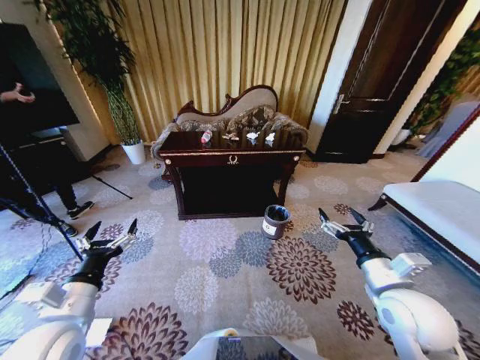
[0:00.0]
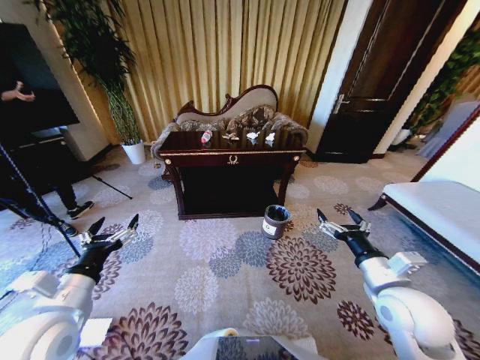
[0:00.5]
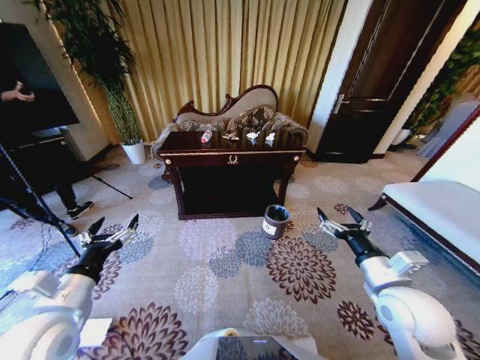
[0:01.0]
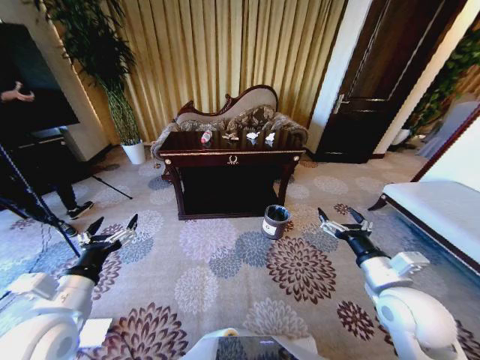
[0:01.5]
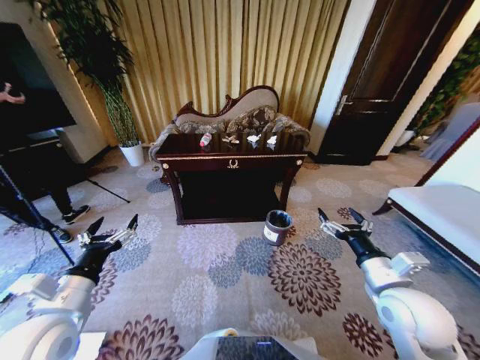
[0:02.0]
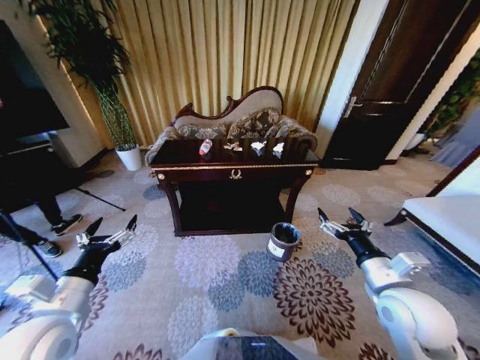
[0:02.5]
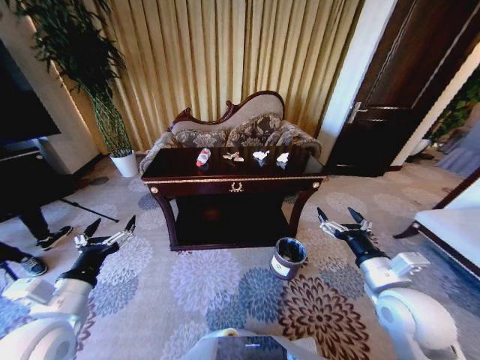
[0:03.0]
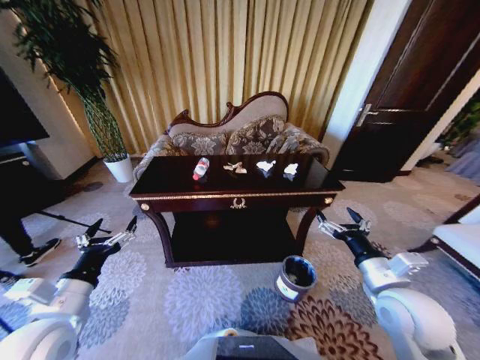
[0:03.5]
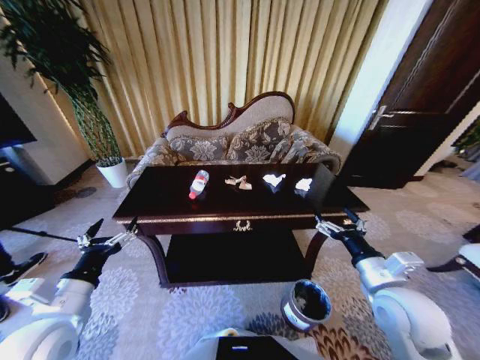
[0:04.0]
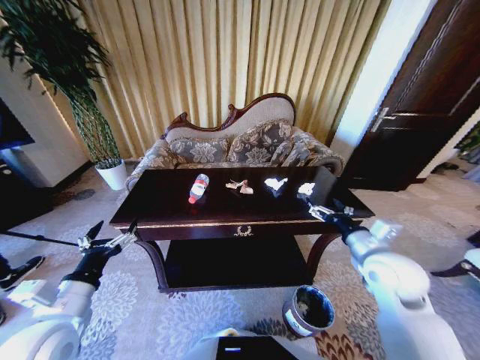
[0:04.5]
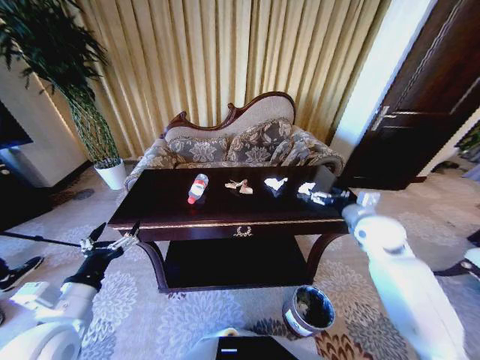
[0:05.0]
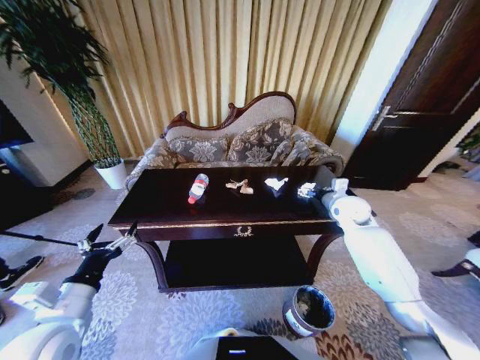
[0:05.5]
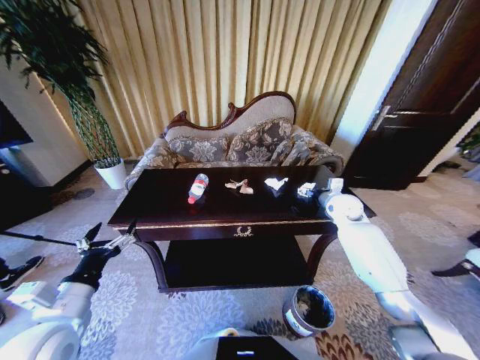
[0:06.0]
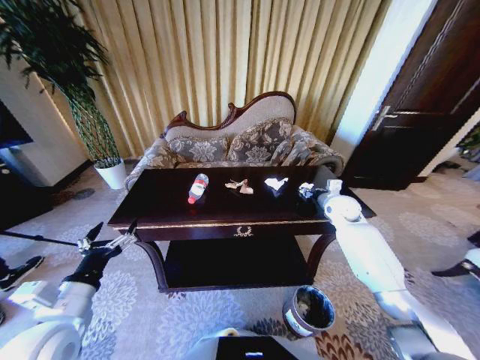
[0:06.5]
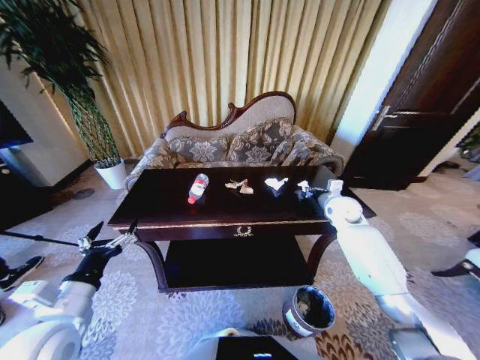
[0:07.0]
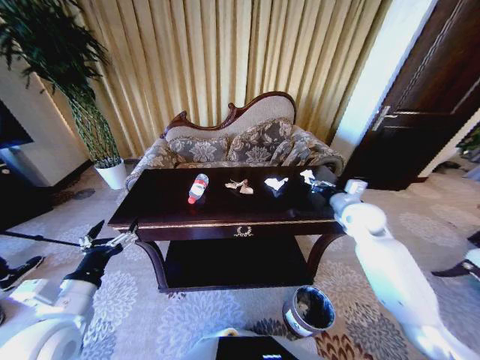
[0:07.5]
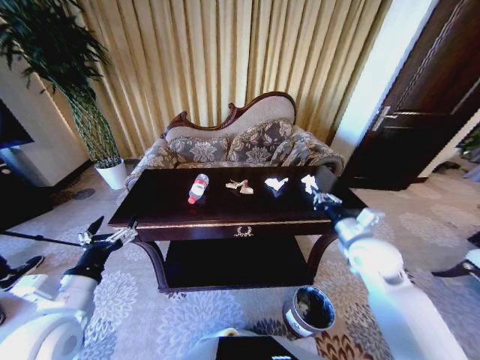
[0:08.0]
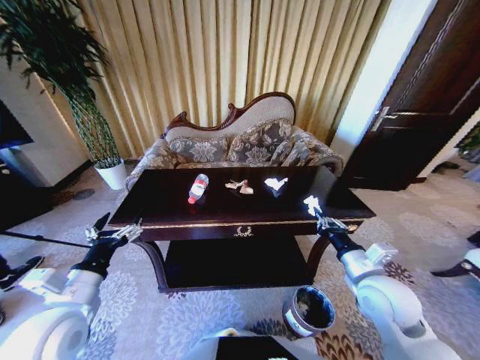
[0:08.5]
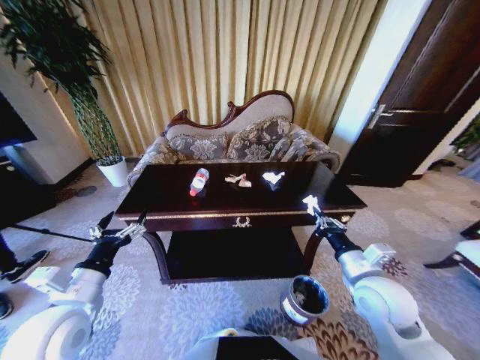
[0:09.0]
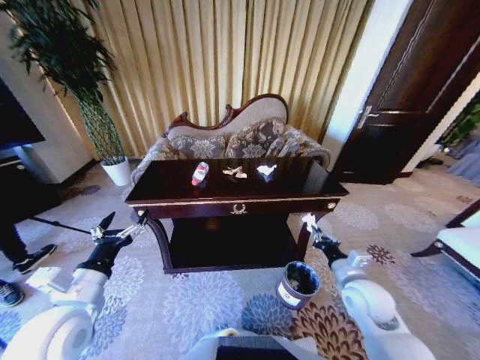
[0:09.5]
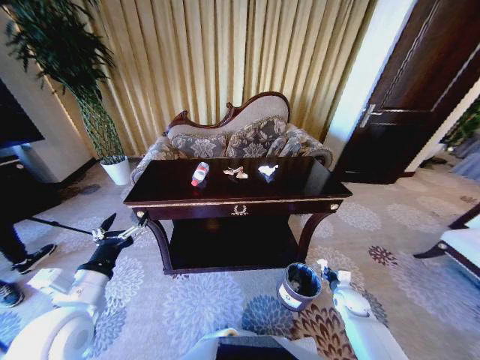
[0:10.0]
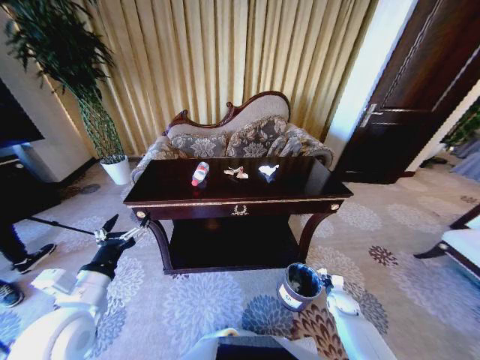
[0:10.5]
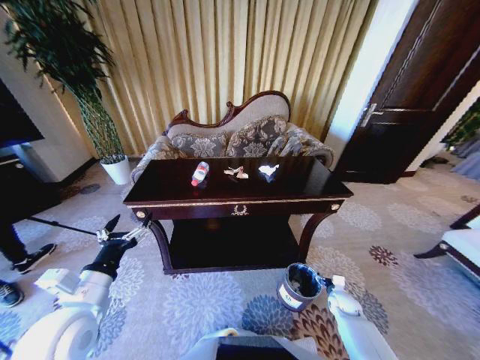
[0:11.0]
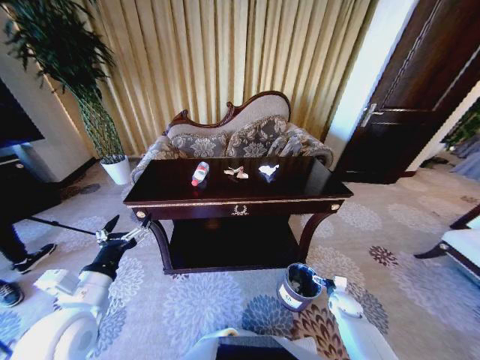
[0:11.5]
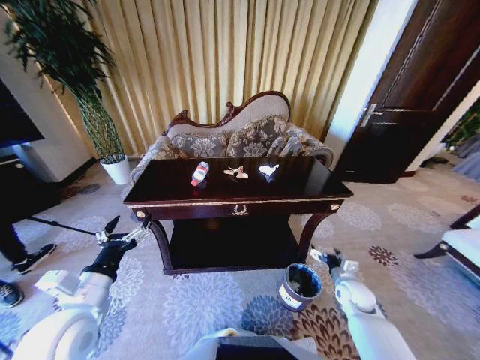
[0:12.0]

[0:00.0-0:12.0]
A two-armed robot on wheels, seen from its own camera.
Task of the whole recording: Move to the front of the table and place the trash on the table into the trash bin.
0:04.0 to 0:06.0: The right gripper goes about 30 cm forward.
0:06.0 to 0:08.0: The right gripper goes some 20 cm backward, and closes.
0:08.0 to 0:10.0: The right gripper goes some 30 cm downward.
0:10.0 to 0:12.0: The right gripper travels upward by approximately 10 cm, and opens.

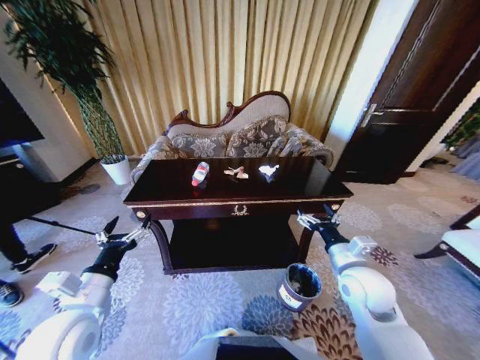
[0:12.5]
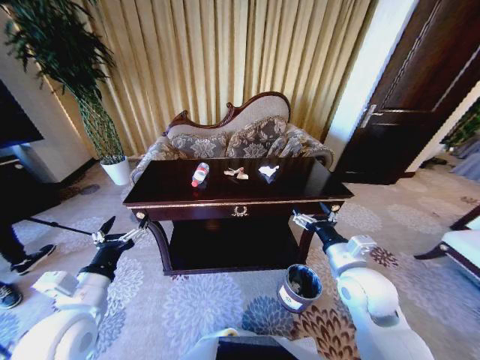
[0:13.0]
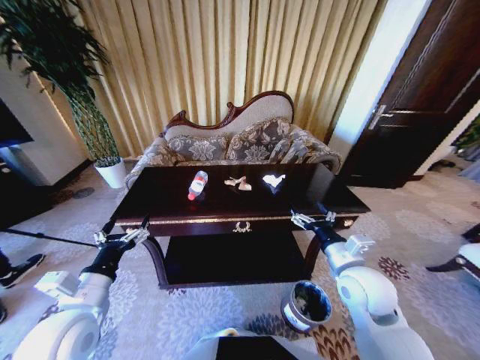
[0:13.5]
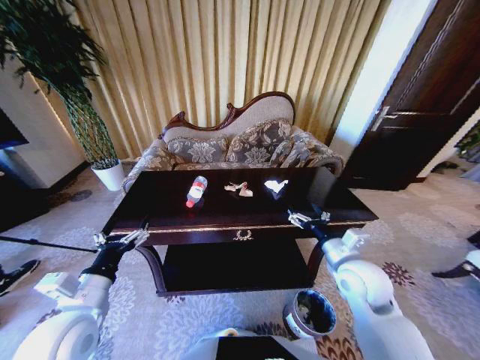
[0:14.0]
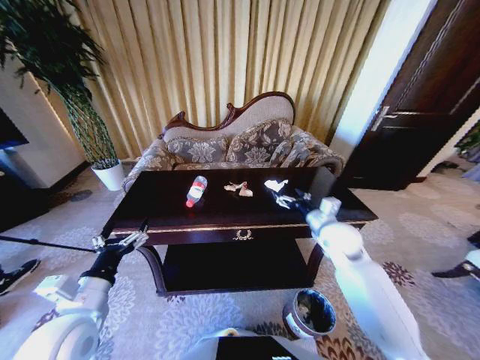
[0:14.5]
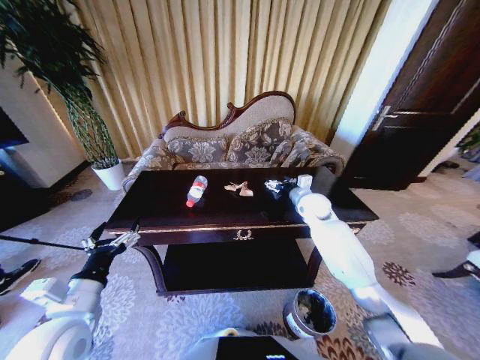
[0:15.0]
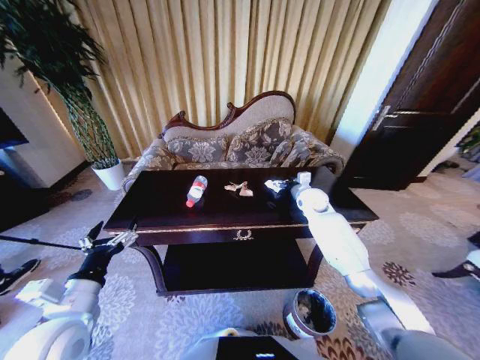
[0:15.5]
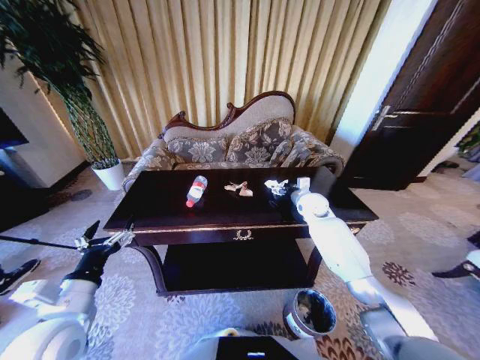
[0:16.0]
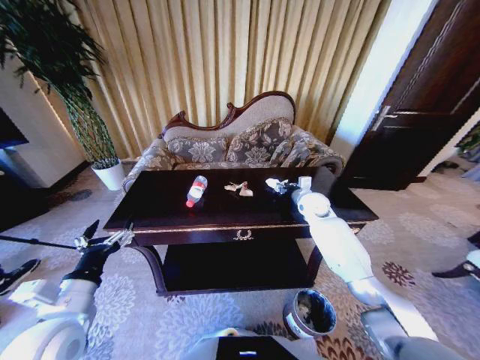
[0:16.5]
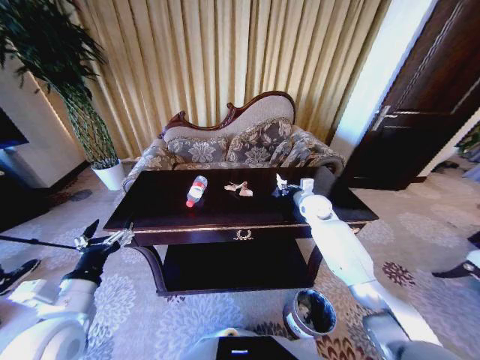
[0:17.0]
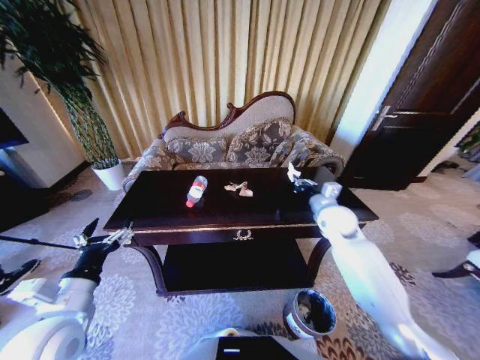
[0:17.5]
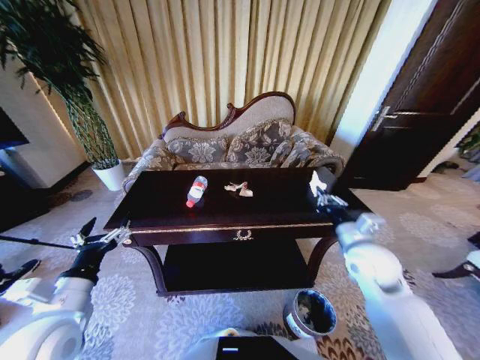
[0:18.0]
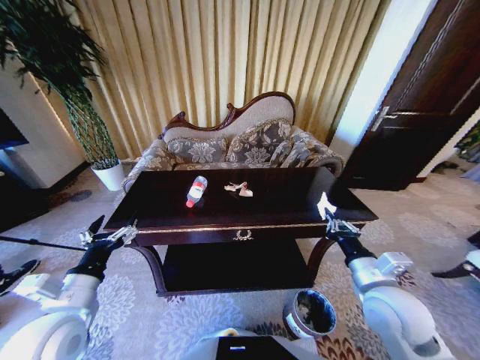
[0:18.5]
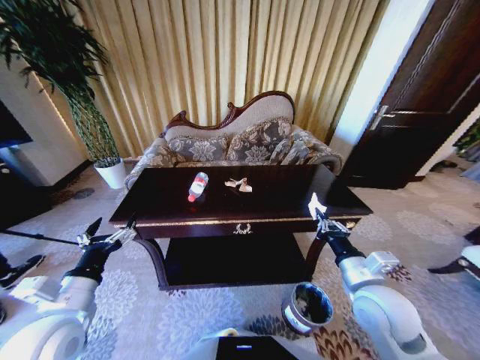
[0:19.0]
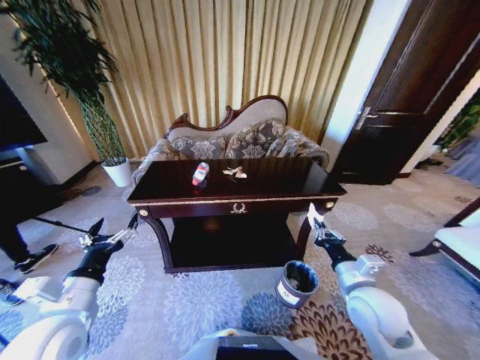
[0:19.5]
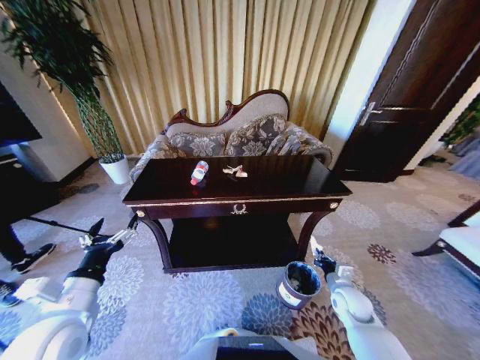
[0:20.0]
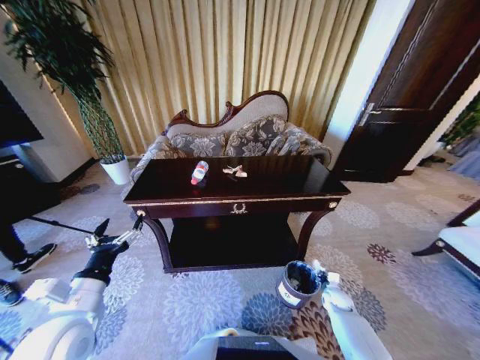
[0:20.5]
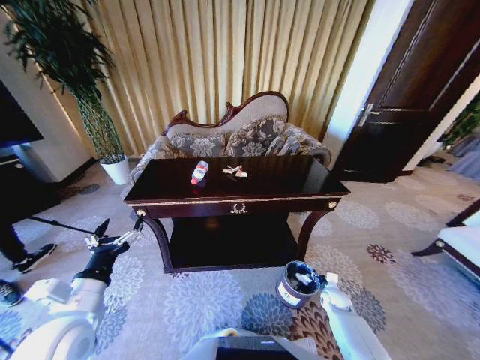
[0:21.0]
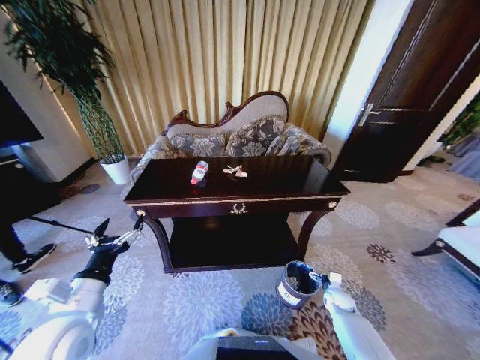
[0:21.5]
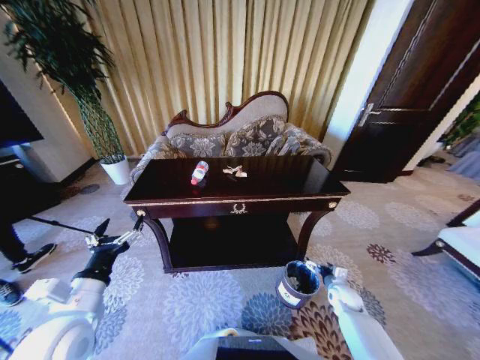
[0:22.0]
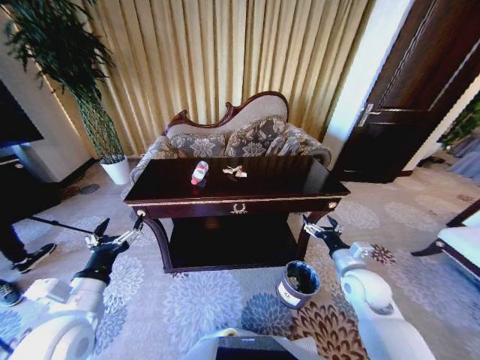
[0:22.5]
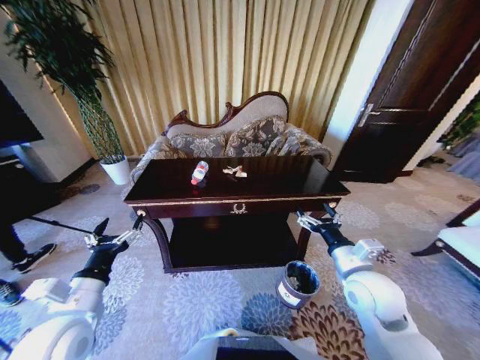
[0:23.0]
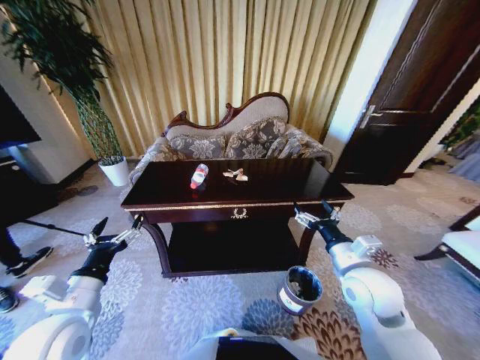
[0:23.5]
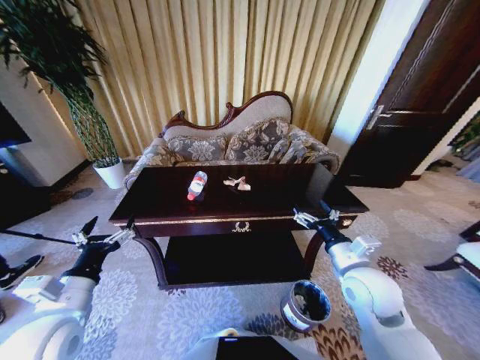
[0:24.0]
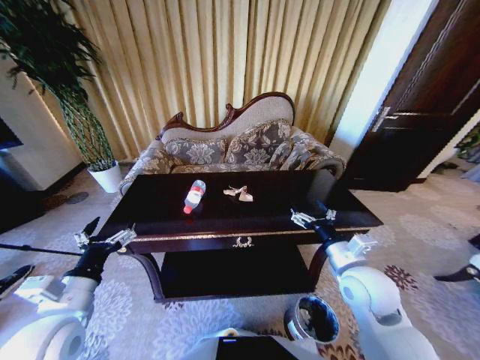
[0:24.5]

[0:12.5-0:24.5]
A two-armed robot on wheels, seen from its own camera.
Task of the whole recording: Move to the front of the table and place the trash on the table into the trash bin.
0:12.5 to 0:14.5: The right gripper goes about 15 cm forward.
0:14.5 to 0:16.5: The right gripper travels forward by approximately 15 cm, and closes.
0:16.5 to 0:18.5: The right gripper heads backward, covering approximately 35 cm, and closes.
0:18.5 to 0:20.5: The right gripper shifts roughly 35 cm downward.
0:20.5 to 0:22.5: The right gripper heads upward, covering some 25 cm, and opens its fingers.
0:22.5 to 0:24.5: The right gripper travels upward and to the left by about 10 cm.

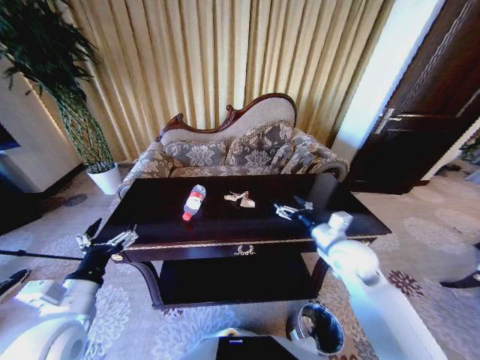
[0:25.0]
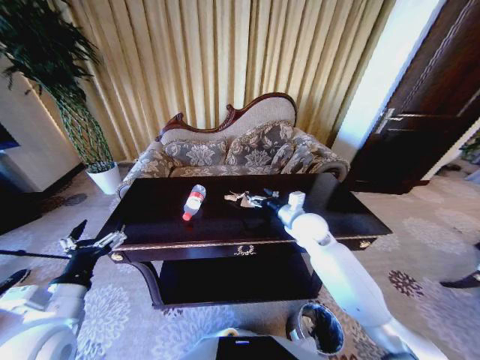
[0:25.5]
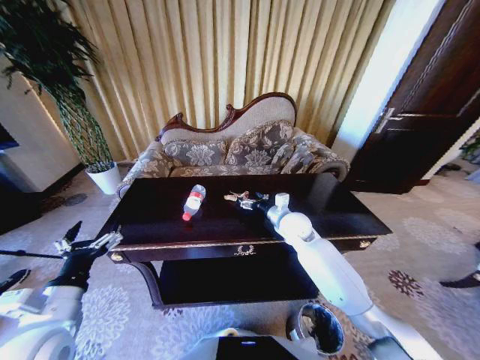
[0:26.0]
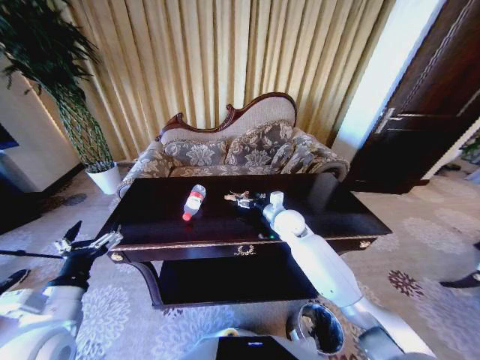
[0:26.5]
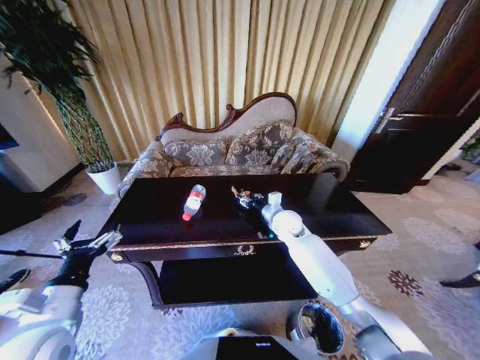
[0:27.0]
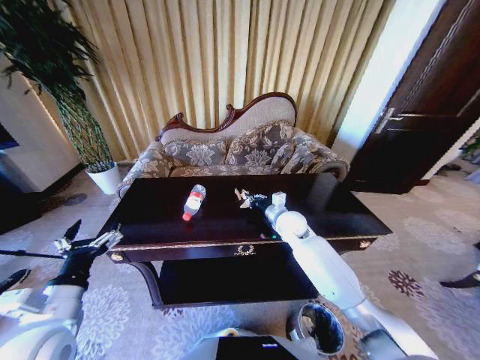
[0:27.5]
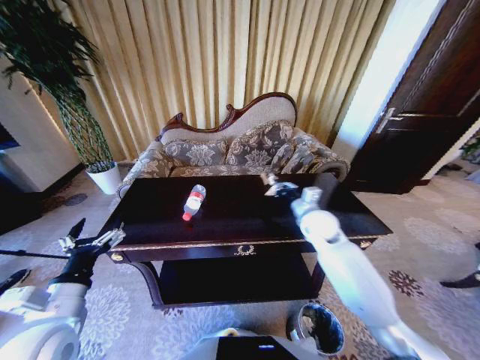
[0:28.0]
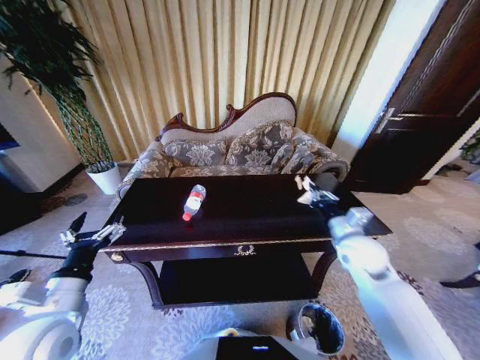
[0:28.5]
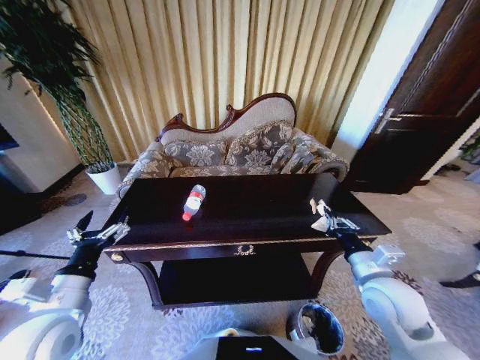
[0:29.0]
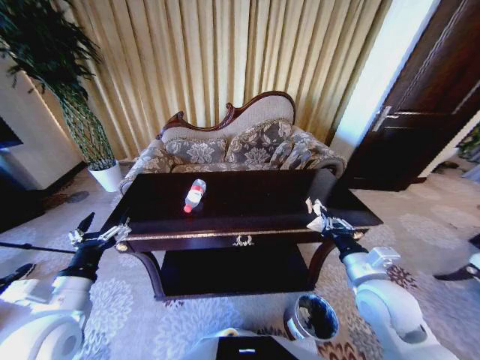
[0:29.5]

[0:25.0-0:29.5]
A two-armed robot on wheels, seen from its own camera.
Task of the whole recording: Move to the front of the table and place the trash on the table into the trash bin.
0:25.0 to 0:27.0: The right gripper travels forward and to the left by some 20 cm, and closes its fingers.
0:27.0 to 0:29.5: The right gripper goes approximately 30 cm backward and to the right, and closes its fingers.
